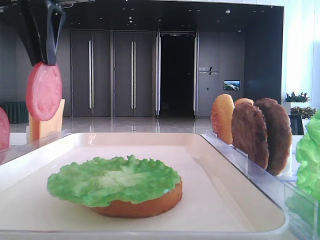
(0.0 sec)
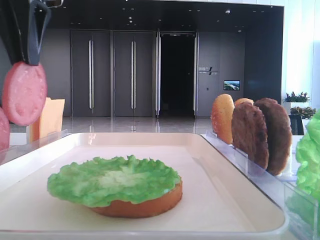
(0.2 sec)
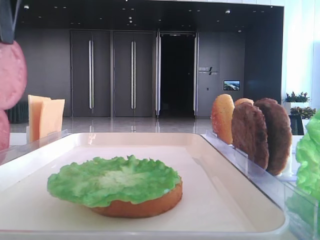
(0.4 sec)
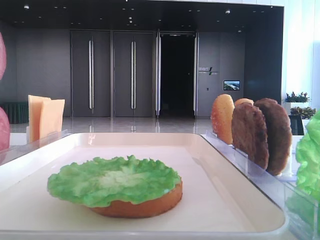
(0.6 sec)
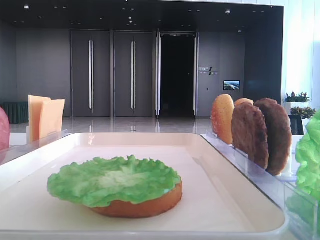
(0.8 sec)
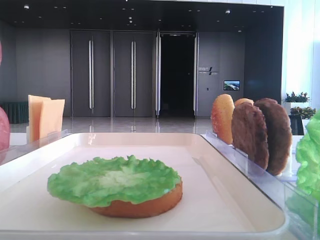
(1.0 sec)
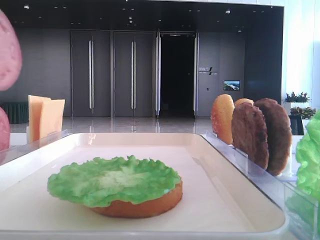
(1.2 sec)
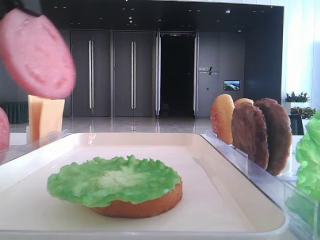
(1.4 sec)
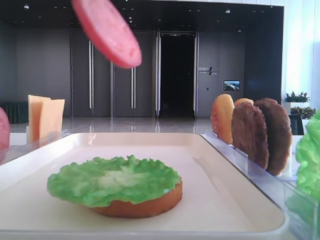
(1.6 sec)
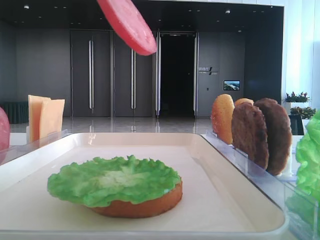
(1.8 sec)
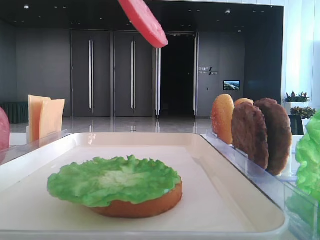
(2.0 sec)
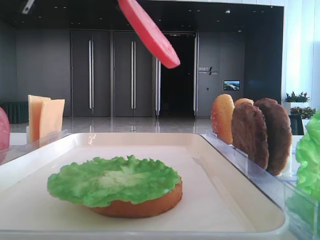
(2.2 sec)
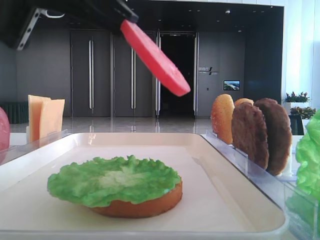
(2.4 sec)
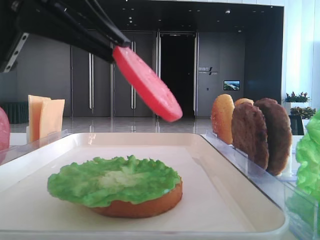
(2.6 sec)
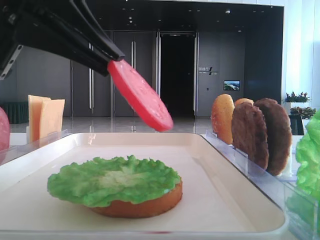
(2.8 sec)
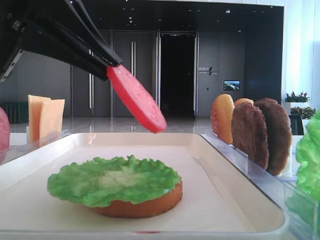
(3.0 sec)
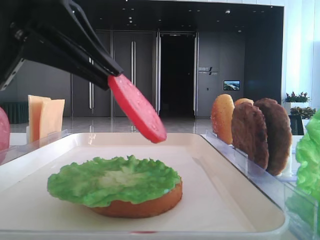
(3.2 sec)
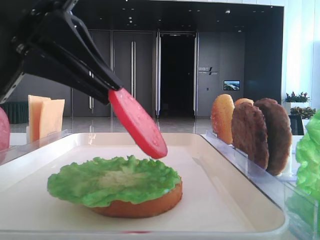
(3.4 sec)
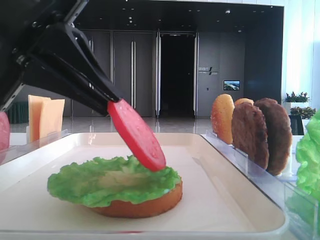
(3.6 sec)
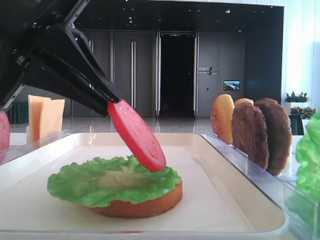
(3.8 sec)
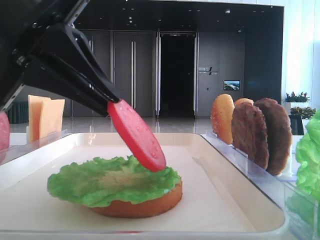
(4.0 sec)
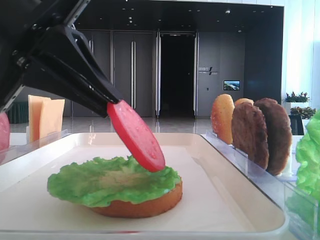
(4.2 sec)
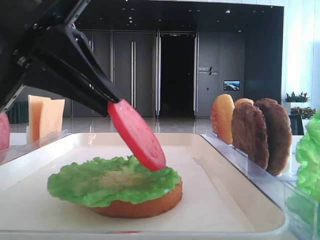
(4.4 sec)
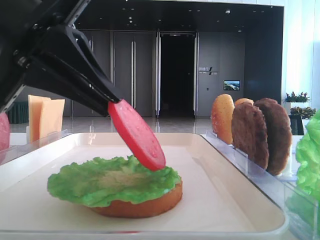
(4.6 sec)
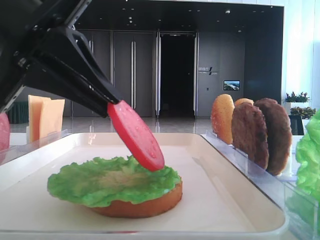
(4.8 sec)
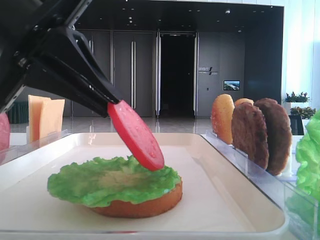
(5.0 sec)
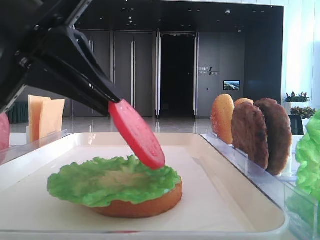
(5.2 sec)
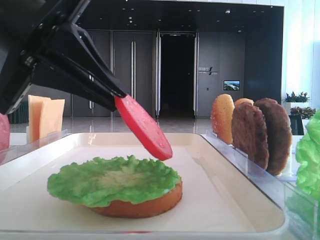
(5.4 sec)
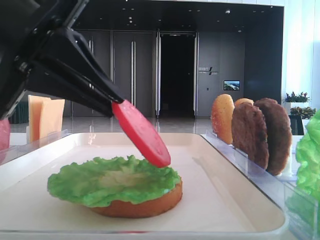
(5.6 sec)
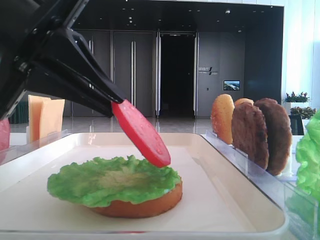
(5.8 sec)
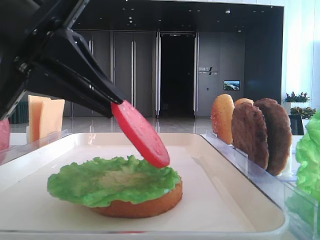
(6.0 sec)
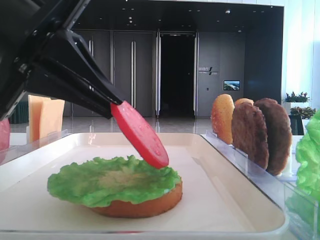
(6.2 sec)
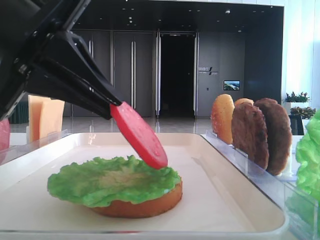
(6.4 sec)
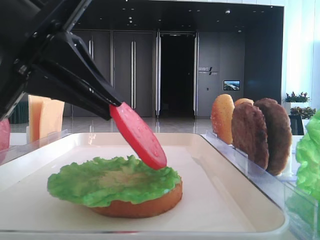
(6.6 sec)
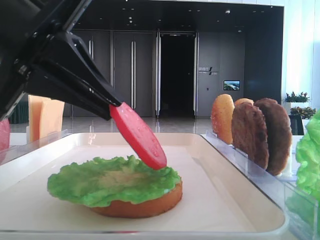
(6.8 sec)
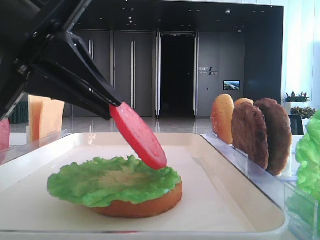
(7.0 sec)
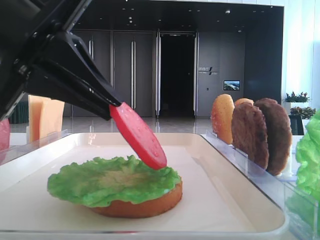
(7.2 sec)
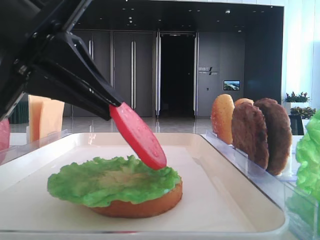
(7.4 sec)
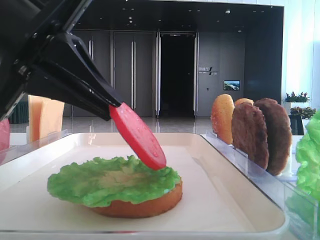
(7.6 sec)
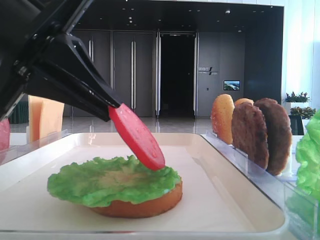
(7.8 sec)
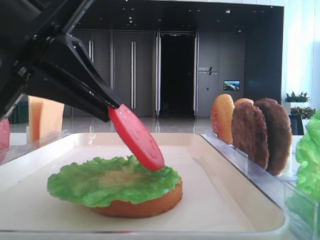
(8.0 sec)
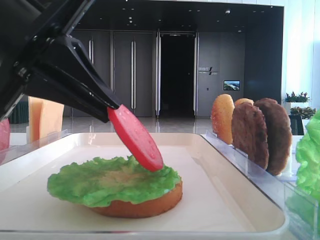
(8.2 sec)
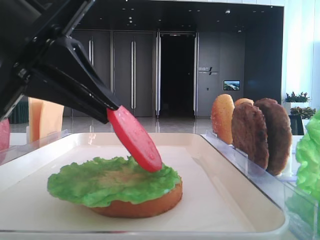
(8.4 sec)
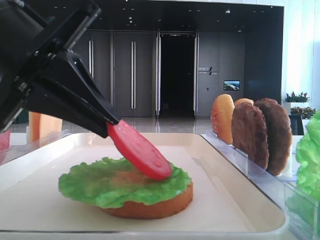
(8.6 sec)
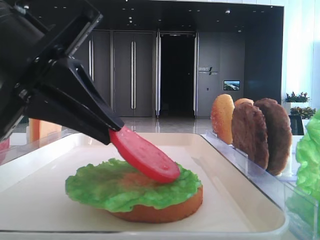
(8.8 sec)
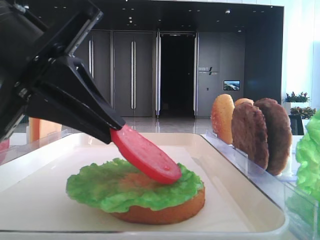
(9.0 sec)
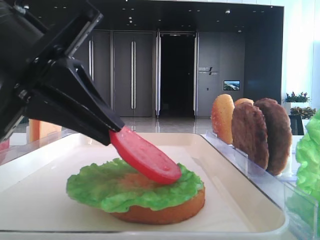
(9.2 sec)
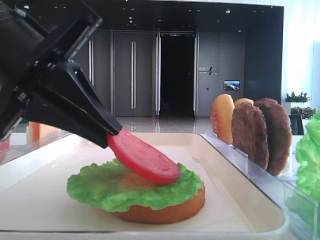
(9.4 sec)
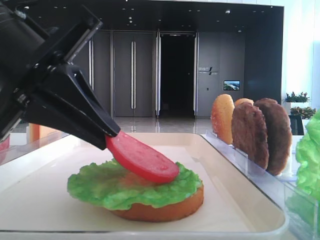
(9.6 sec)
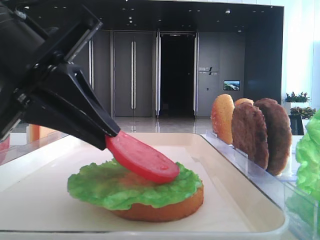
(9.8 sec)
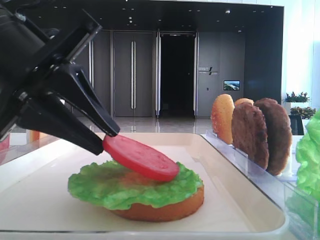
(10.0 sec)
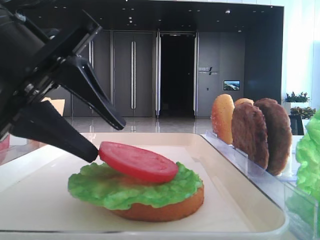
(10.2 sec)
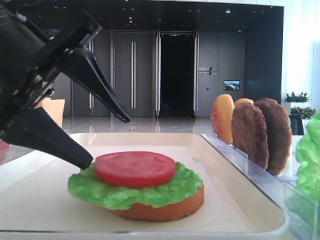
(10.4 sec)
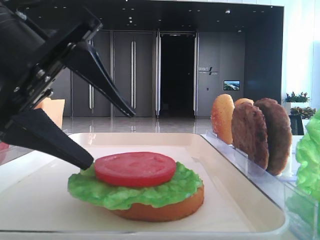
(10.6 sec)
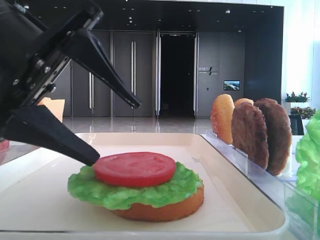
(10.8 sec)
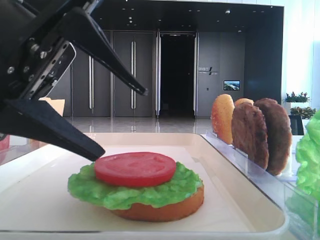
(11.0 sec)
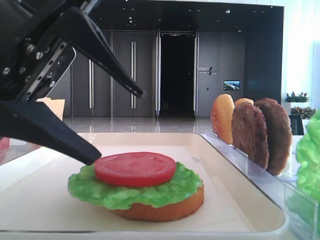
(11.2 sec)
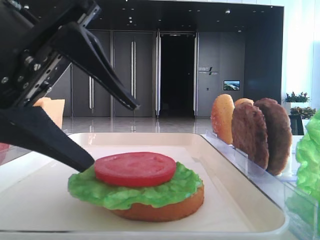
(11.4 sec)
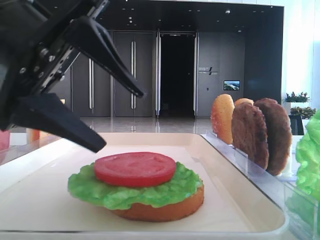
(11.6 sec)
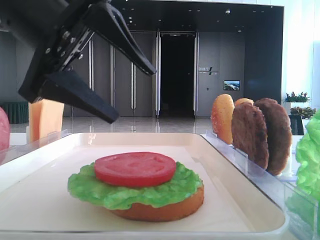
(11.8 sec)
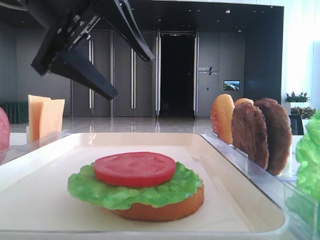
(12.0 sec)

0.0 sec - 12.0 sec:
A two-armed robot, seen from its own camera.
Step, 0.0 sec - 10.2 sec: Place the tomato slice on the lettuce leaf with the left hand.
0.0 sec - 1.6 sec: The left gripper goes roughly 10 cm backward.
1.6 sec - 3.0 sec: The left gripper moves downward, some 10 cm.
3.0 sec - 4.4 sec: The grippers move only a little.
4.4 sec - 7.6 sec: The two grippers keep their place.
7.6 sec - 9.0 sec: There are only small adjustments of the grippers.
9.0 sec - 10.4 sec: The left gripper opens its fingers.
10.4 sec - 12.0 sec: The left gripper is displaced upward and forward by about 10 cm.

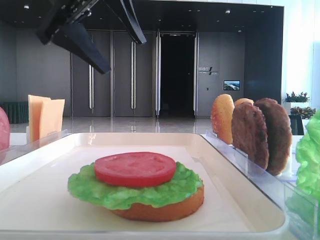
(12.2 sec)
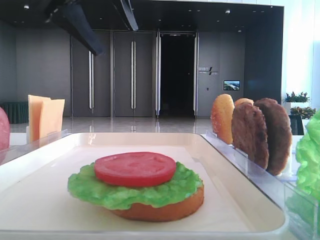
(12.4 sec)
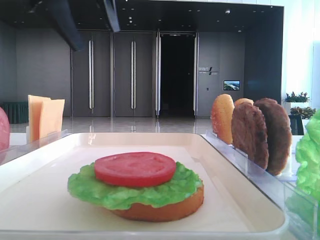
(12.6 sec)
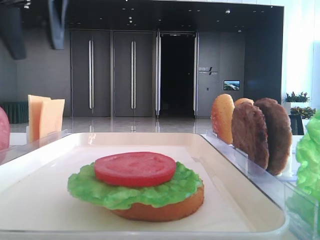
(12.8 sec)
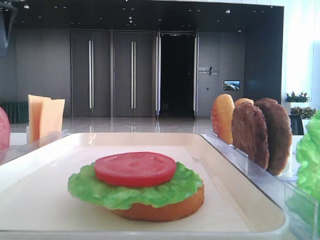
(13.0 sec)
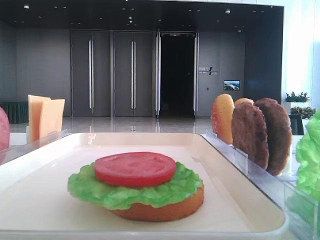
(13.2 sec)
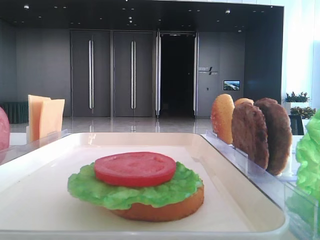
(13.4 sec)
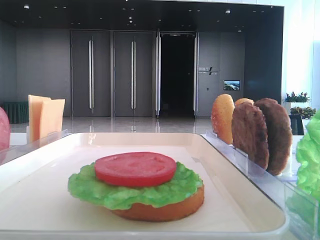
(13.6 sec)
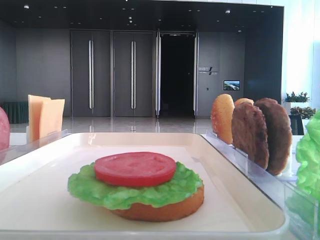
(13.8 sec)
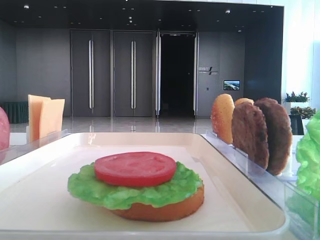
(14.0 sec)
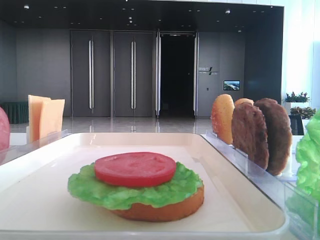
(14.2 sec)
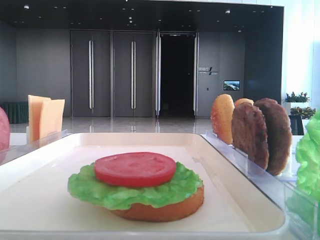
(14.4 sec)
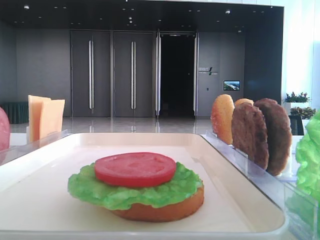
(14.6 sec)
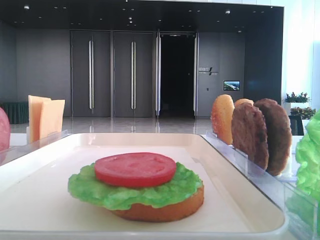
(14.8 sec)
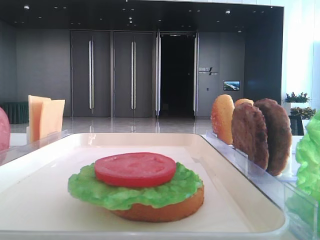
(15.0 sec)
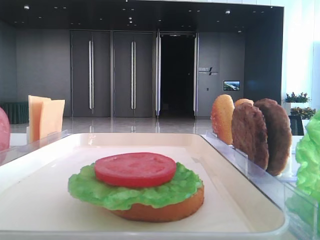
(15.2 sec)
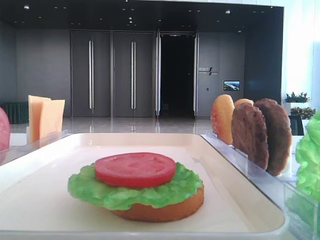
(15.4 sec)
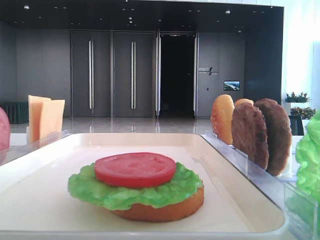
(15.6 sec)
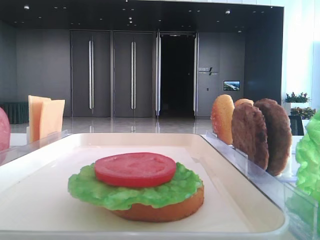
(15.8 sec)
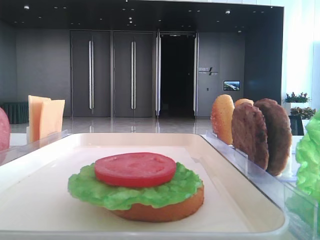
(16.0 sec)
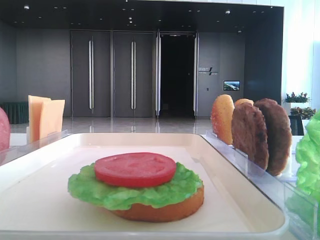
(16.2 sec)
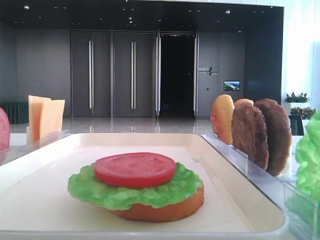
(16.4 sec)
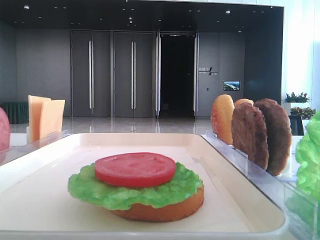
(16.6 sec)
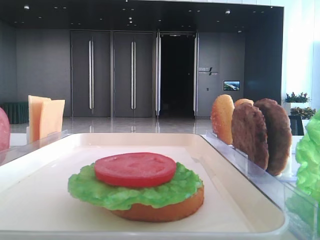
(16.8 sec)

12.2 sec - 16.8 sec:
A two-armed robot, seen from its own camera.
12.2 sec - 13.8 sec: The left gripper shifts some 25 cm to the left.
